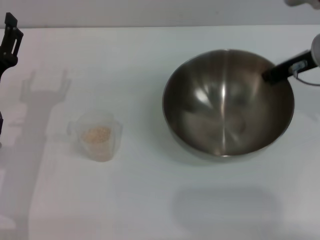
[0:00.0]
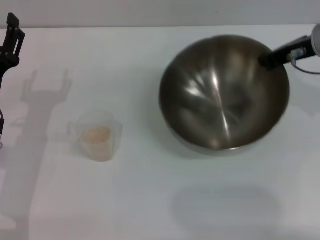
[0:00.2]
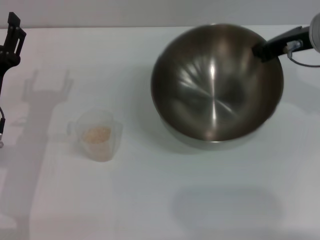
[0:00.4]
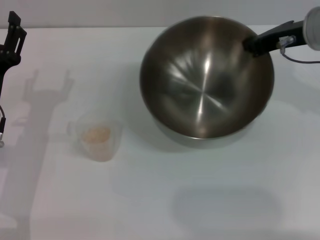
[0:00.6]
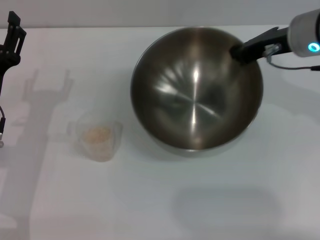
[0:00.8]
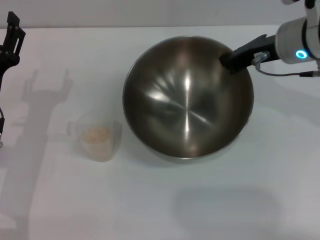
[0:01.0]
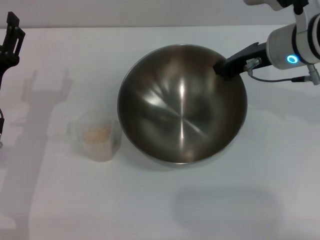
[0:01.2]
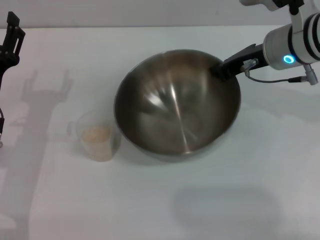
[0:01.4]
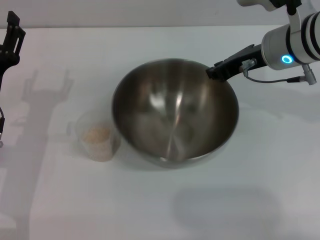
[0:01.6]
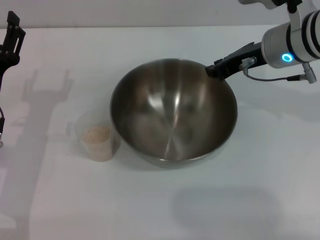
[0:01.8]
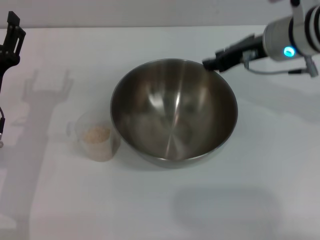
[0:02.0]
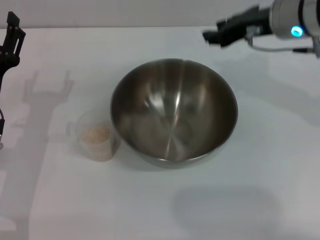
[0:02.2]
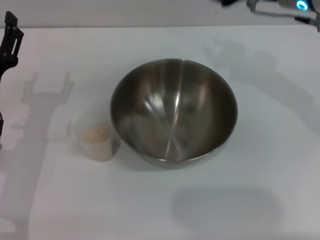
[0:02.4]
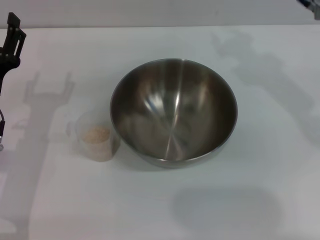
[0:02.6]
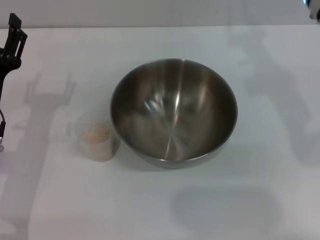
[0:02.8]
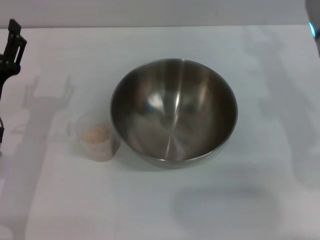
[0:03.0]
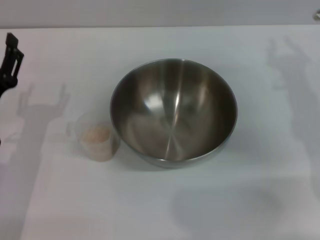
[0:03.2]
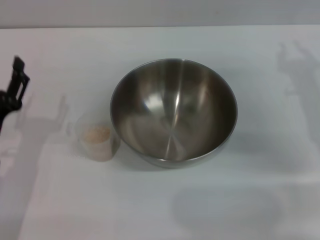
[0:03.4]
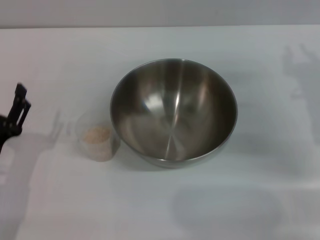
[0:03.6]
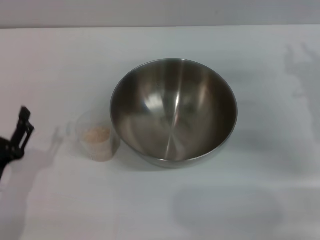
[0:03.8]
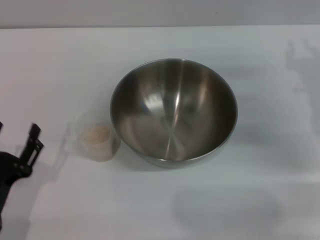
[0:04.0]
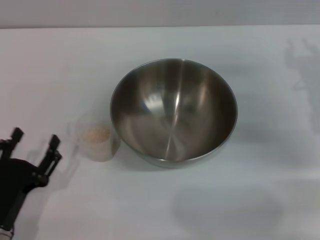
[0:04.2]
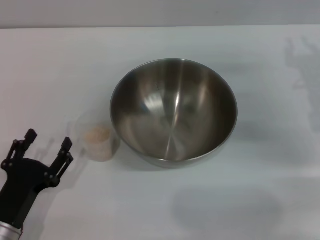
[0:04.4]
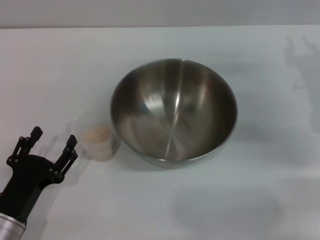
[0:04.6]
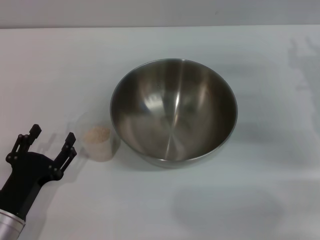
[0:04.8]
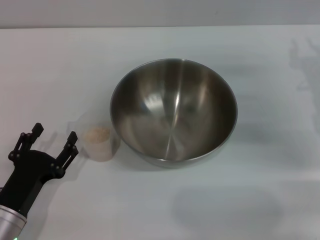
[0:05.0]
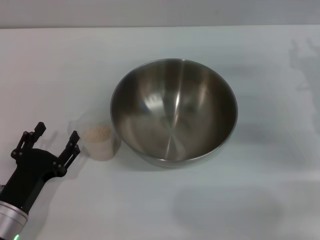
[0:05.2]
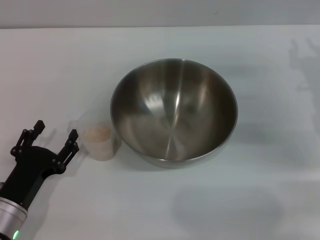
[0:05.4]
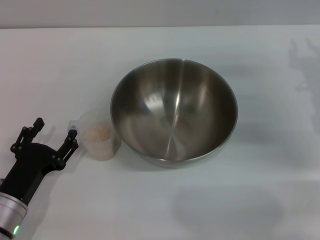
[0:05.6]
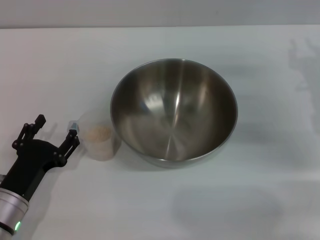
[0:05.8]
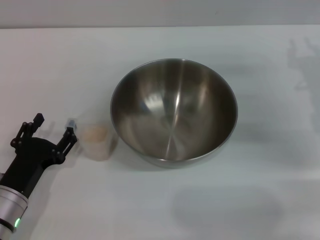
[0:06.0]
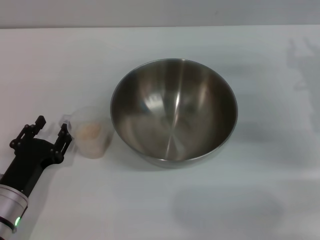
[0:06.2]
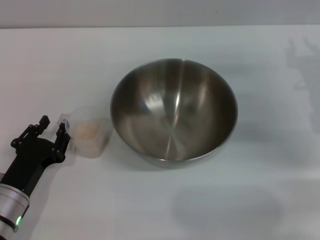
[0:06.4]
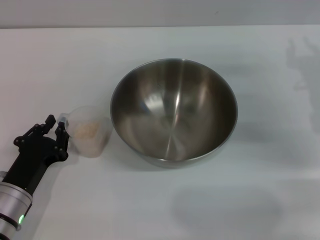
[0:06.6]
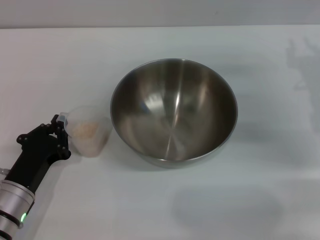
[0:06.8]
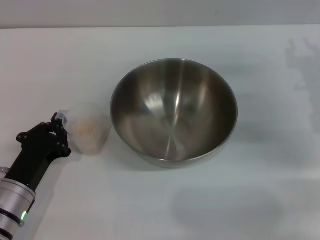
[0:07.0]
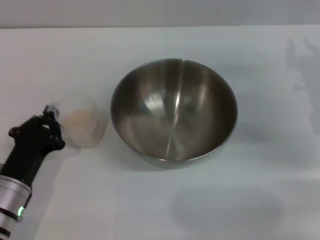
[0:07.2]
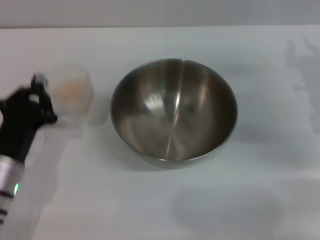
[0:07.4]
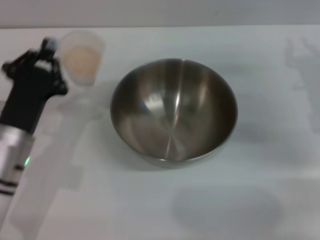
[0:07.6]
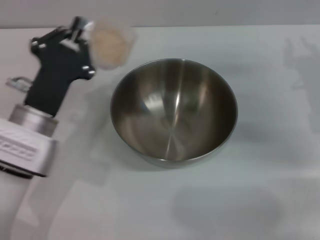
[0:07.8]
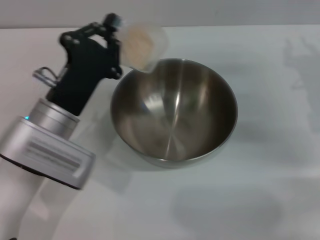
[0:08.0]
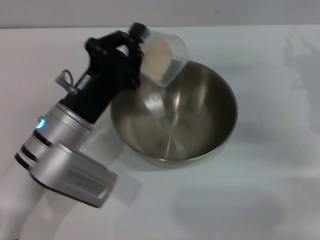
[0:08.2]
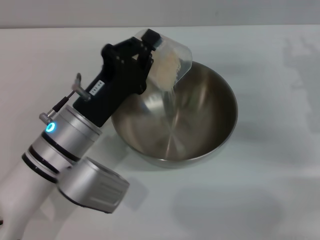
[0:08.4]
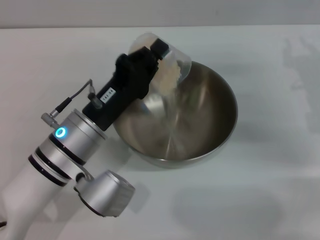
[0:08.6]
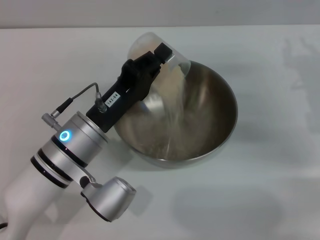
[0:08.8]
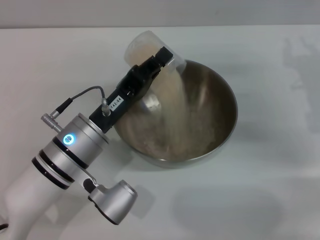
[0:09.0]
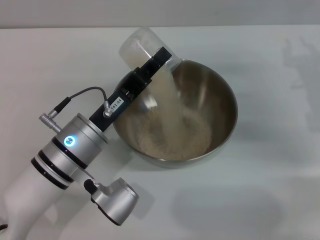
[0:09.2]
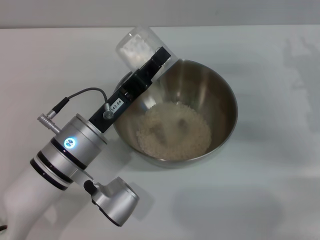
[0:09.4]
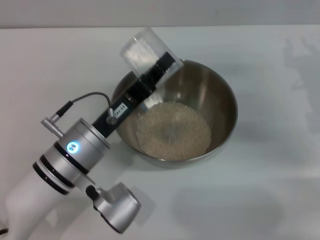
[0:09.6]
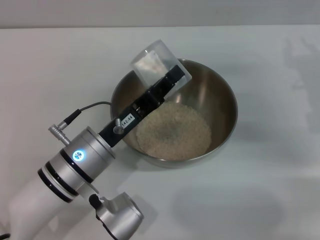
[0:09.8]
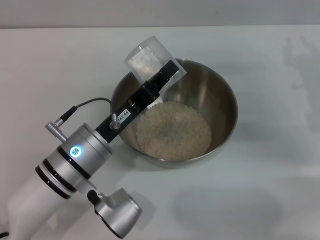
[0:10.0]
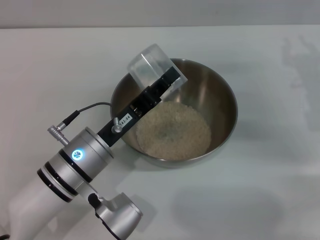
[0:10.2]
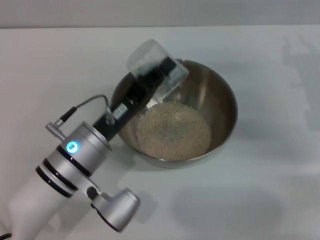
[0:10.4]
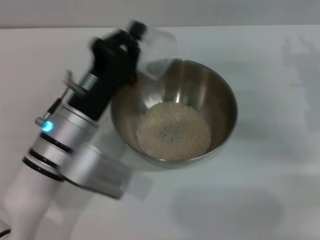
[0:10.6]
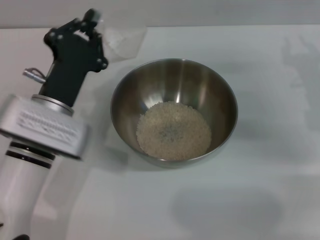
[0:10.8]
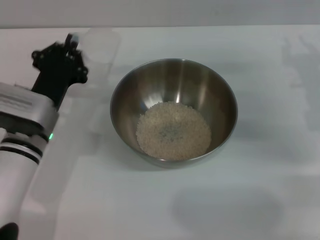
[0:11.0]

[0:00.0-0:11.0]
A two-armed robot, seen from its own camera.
Task of the whole recording: Place the bowl in the middle of the table with one hand and pour the rice from the grain cup into it with the other hand.
Step, 0:00.8 to 0:02.0: Place the bowl in the center of view with the right gripper.
Step, 0:02.4 to 0:07.2: Pick up the cup with rice in it with the left gripper.
Step, 0:07.4 to 0:09.2: Pour the rice from the cup into the bowl with the left gripper.
0:00.0 to 0:01.6: The right gripper heads to the left, covering roughly 5 cm.
0:01.6 to 0:03.2: The right gripper shifts about 5 cm to the right, and opens up.
0:03.2 to 0:04.8: The left gripper is displaced backward and downward by roughly 10 cm.
0:04.8 to 0:06.2: The grippers stay close to where they were, moving slightly.
0:06.2 to 0:07.8: The left gripper moves upward, forward and to the right, approximately 15 cm, and closes up.
0:07.8 to 0:09.4: The left gripper shifts by approximately 5 cm.
0:09.4 to 0:11.0: The left gripper is displaced to the left by about 5 cm.

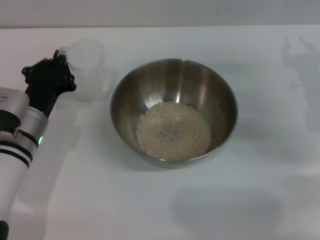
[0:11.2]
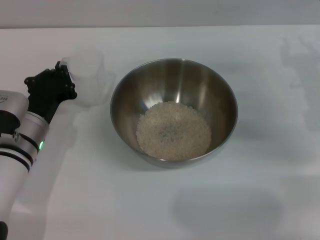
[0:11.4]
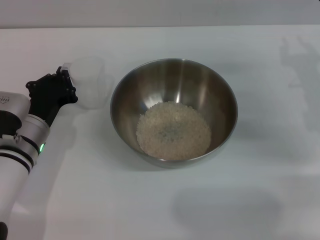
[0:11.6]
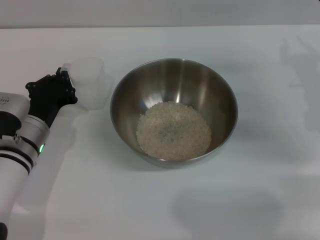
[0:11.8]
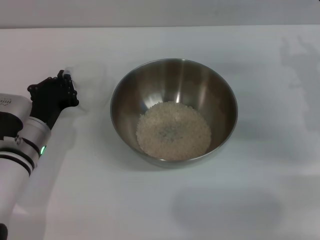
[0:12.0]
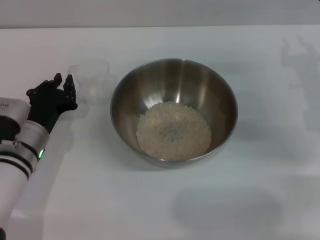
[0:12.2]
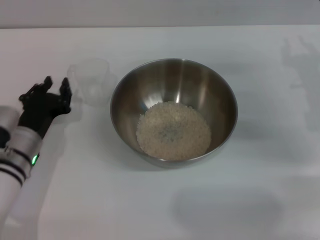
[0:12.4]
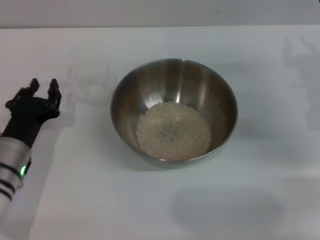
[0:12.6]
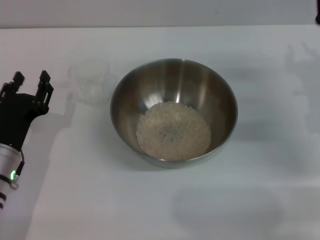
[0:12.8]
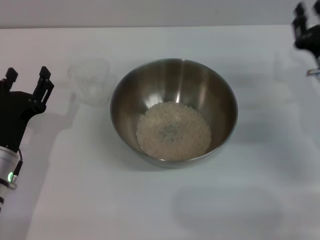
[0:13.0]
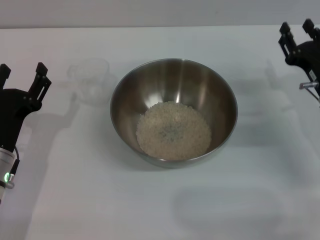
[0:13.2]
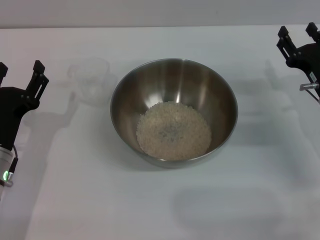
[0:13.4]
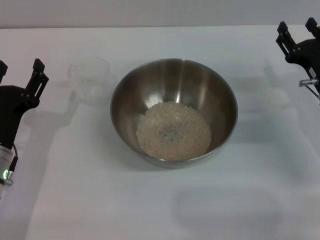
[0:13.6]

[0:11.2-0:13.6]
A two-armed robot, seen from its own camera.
Task of the whole recording: Place the bowl in the middle of the table with one hand and pour the rice from the grain cup into it with the other hand.
0:11.2 to 0:12.4: The grippers stay close to where they were, moving slightly.
0:12.4 to 0:13.6: The right gripper goes some 5 cm downward. The left gripper ends up roughly 5 cm from where it was, and opens.

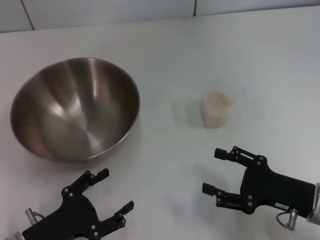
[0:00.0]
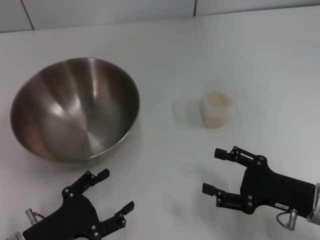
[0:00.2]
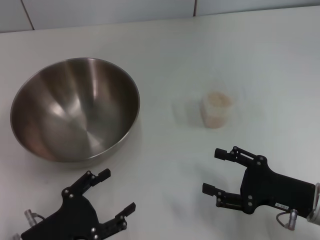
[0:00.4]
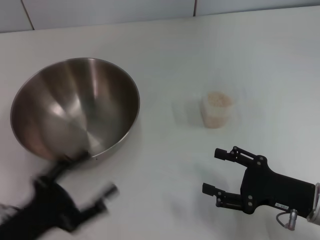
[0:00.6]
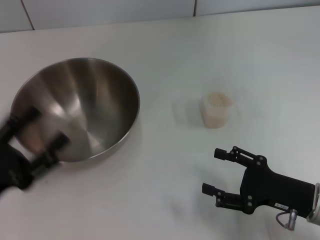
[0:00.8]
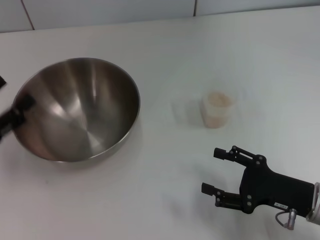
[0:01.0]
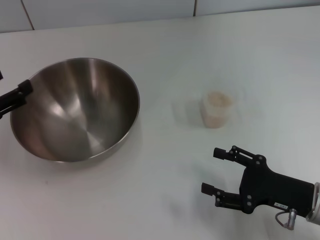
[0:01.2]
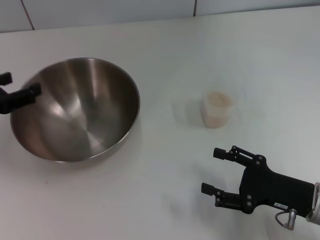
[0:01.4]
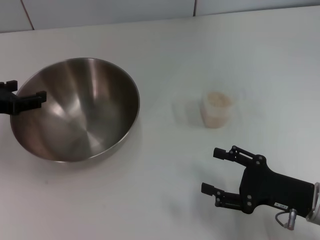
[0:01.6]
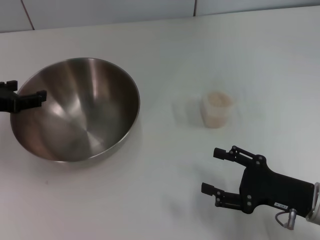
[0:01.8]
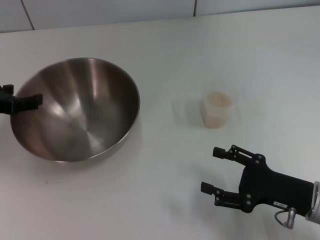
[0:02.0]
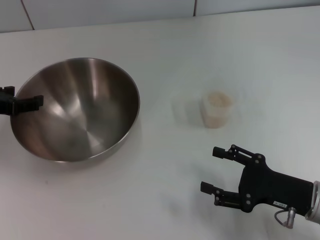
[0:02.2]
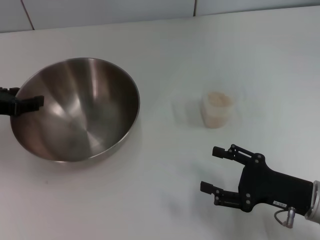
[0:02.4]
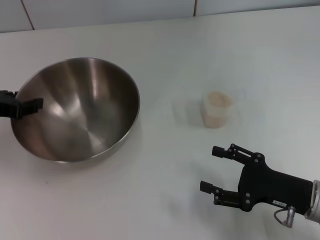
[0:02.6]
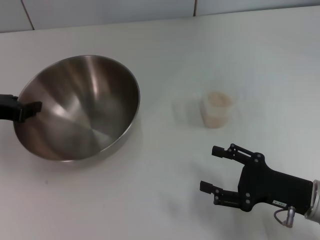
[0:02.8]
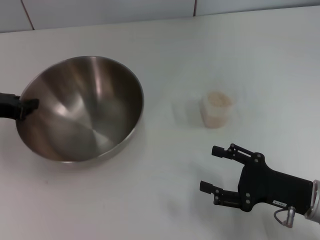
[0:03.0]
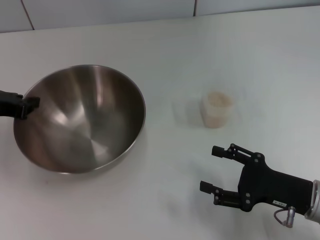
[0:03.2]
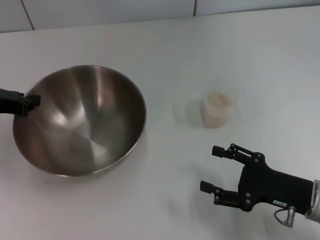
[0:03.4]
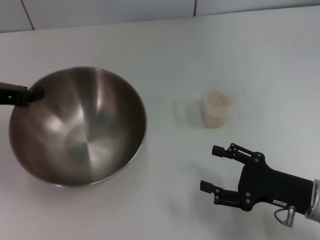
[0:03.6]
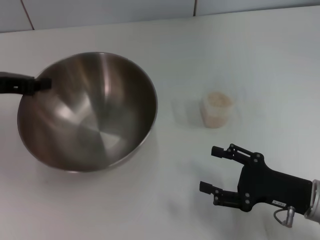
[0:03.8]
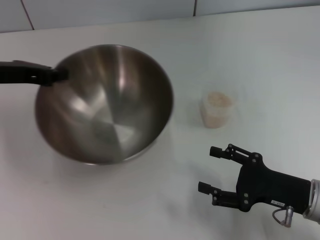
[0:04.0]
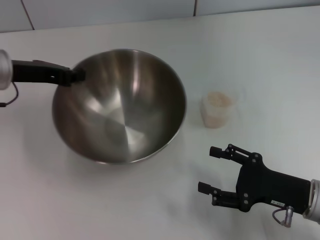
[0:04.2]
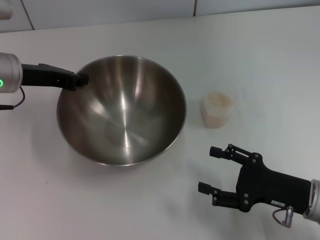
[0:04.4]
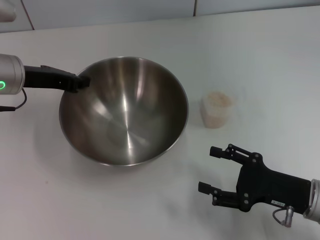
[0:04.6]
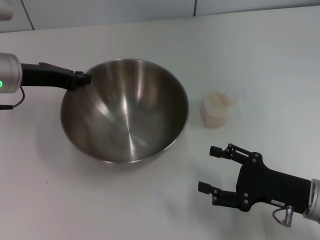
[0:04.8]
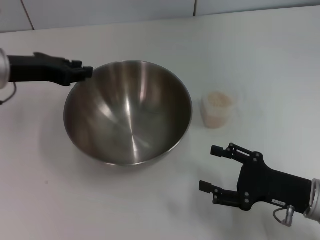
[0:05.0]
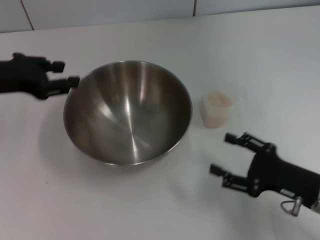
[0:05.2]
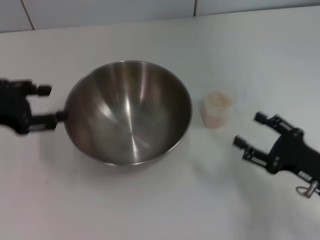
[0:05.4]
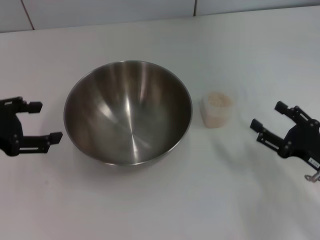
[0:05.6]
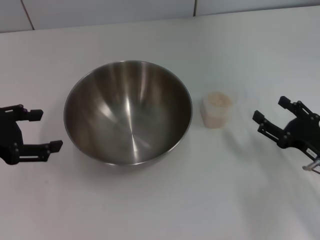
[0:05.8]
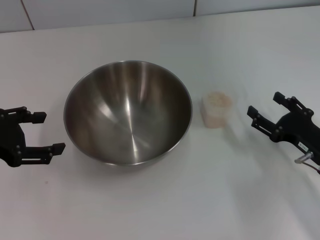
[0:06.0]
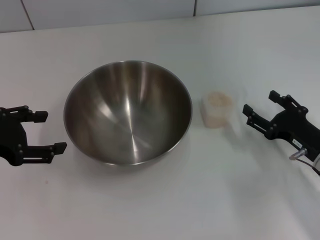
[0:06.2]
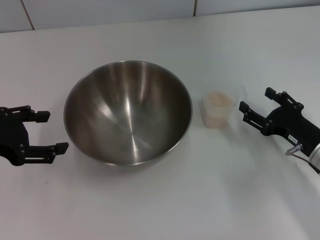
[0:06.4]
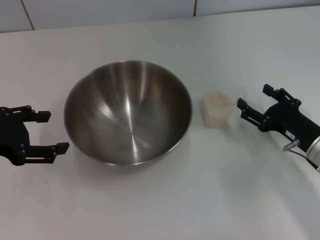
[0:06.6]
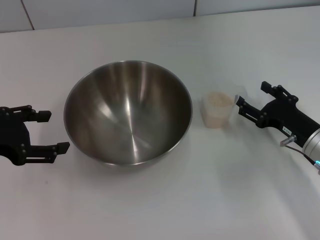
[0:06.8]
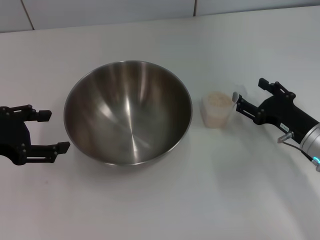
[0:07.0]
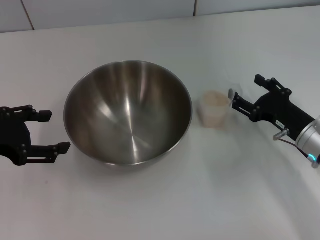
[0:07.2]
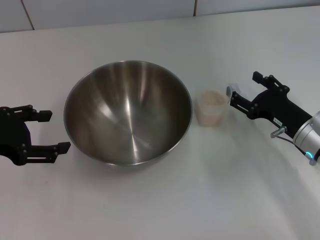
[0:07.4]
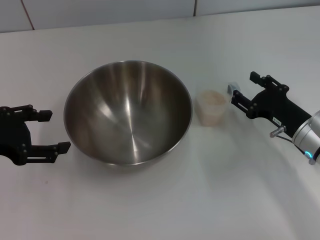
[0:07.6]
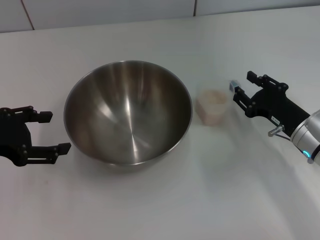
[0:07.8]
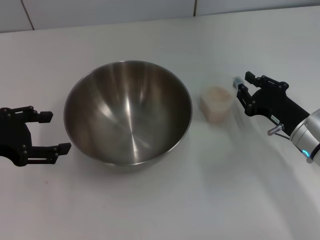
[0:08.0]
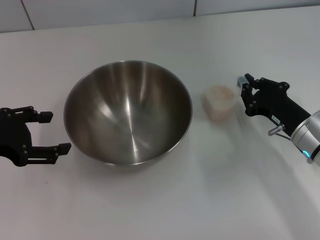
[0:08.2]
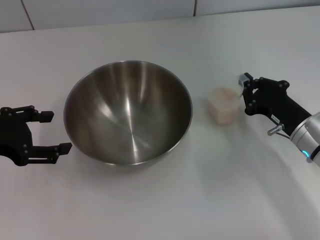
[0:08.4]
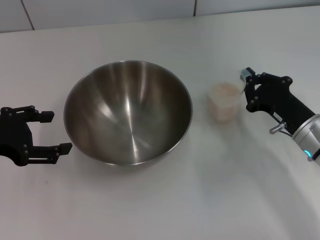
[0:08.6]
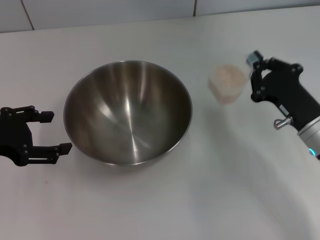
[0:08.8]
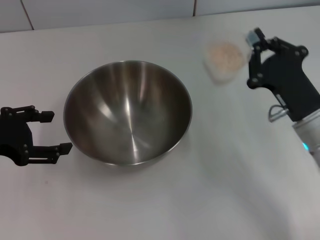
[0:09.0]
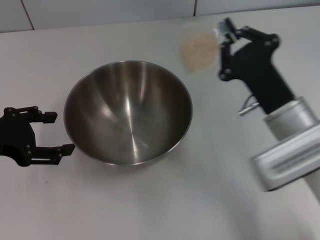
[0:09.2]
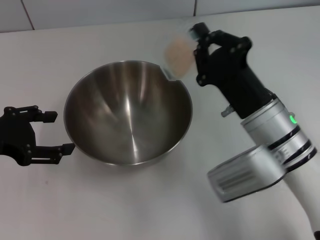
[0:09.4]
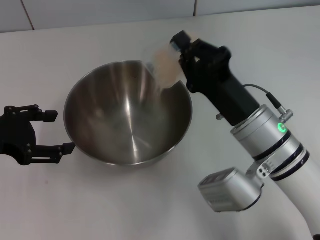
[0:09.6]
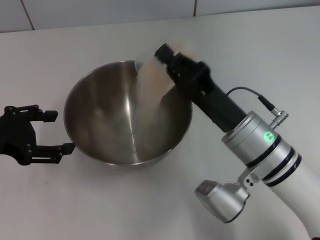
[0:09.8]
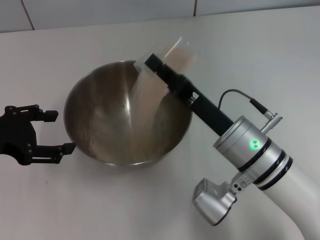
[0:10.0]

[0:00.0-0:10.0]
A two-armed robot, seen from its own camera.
Task of the whole recording: Place the bowl in the middle of the table with one hand and pour the rice from the grain cup into it with the other hand.
Step, 0:00.0 to 0:03.6: Pick up the bowl with the left gripper.
Step, 0:04.0 to 0:05.2: Place the bowl in the center of view with the left gripper.
Step, 0:05.4 to 0:08.8: Pick up the cup with rice in it with the right gripper.
0:00.0 to 0:01.4: The left gripper goes approximately 20 cm forward, upward and to the left.
0:01.4 to 0:02.8: The left gripper closes its fingers.
0:02.8 to 0:04.2: The left gripper goes some 10 cm to the right and forward, and closes up.
0:04.2 to 0:05.8: The right gripper ends up roughly 5 cm from where it was; the left gripper moves backward and to the left, approximately 15 cm, and opens.
0:05.8 to 0:07.2: The right gripper is displaced forward by roughly 5 cm.
0:07.2 to 0:08.6: The right gripper closes its fingers.
0:08.6 to 0:10.0: The right gripper shifts about 15 cm to the left.
